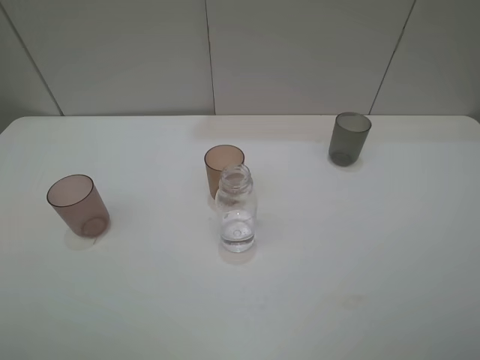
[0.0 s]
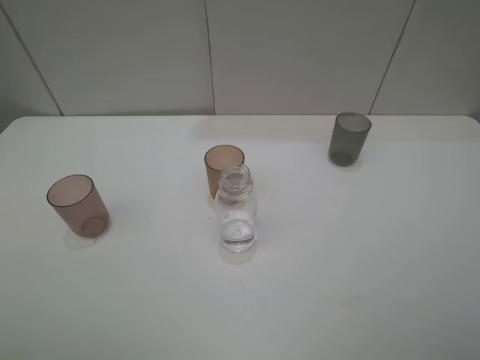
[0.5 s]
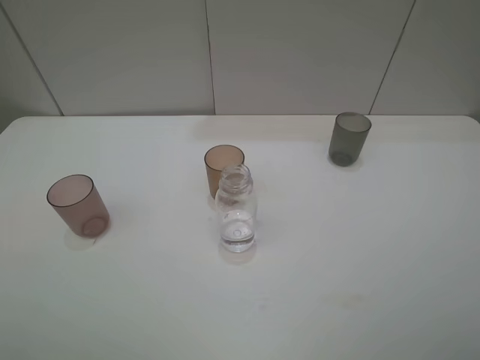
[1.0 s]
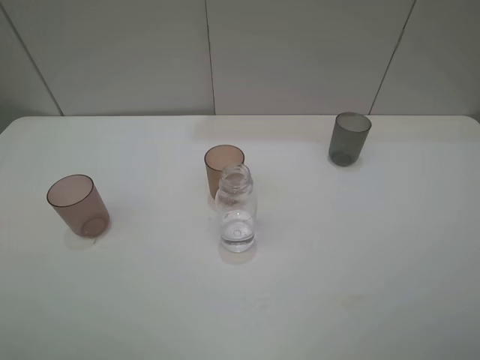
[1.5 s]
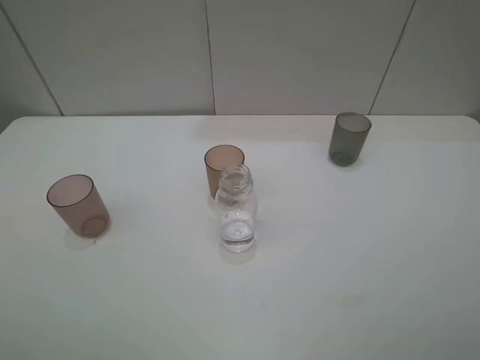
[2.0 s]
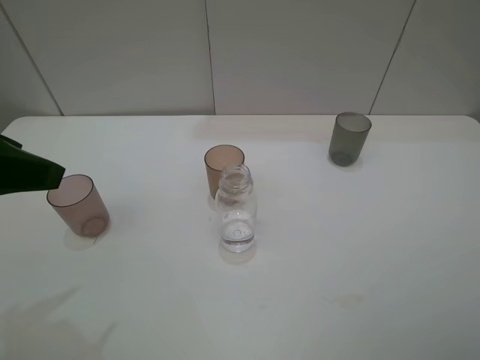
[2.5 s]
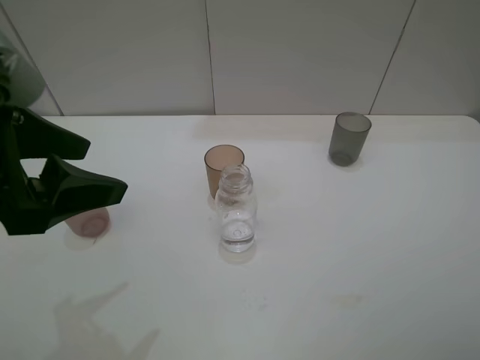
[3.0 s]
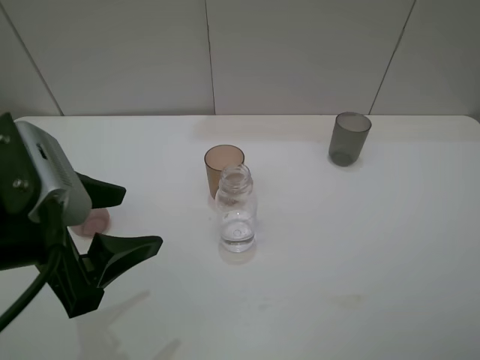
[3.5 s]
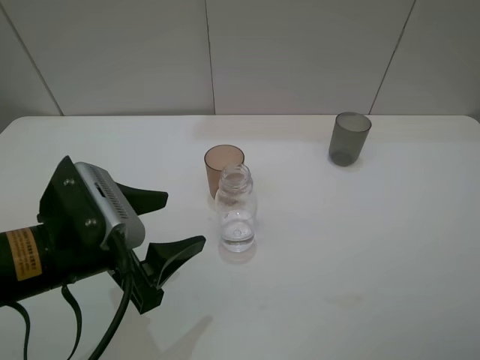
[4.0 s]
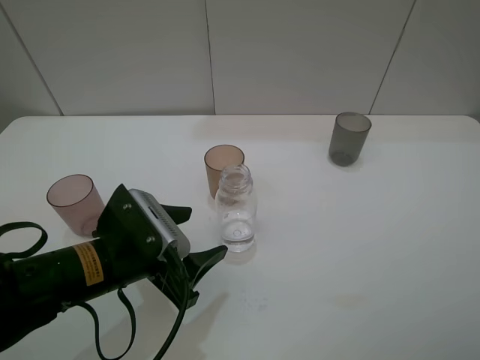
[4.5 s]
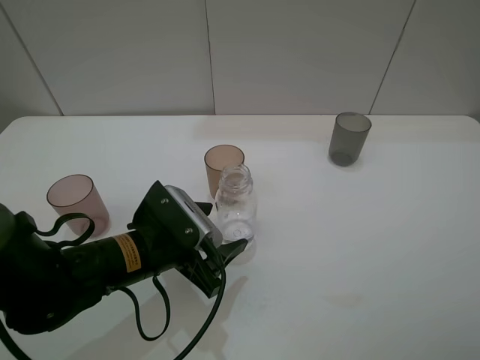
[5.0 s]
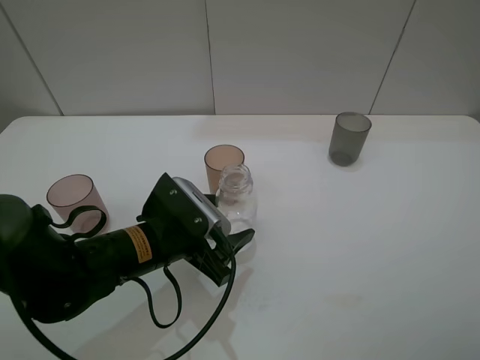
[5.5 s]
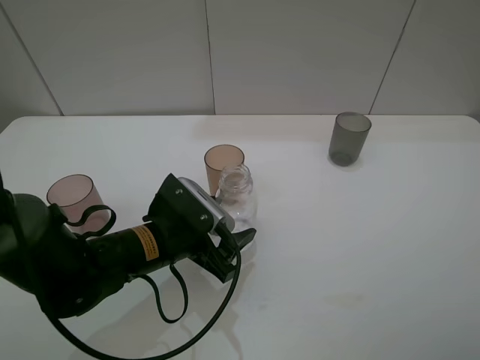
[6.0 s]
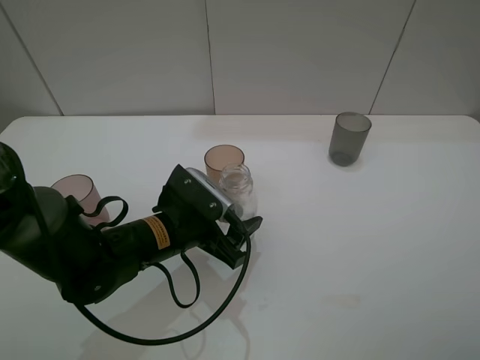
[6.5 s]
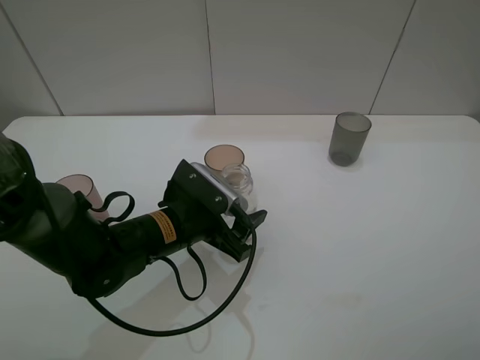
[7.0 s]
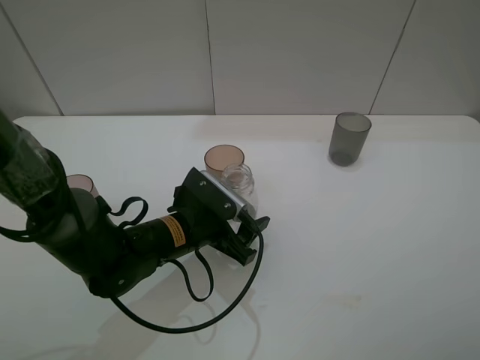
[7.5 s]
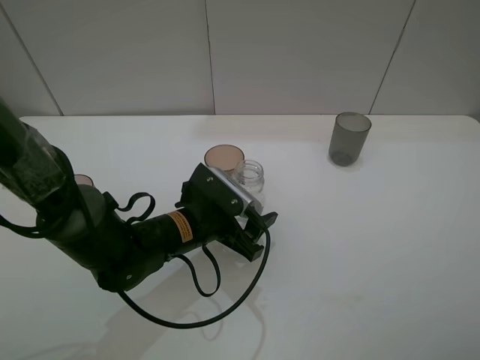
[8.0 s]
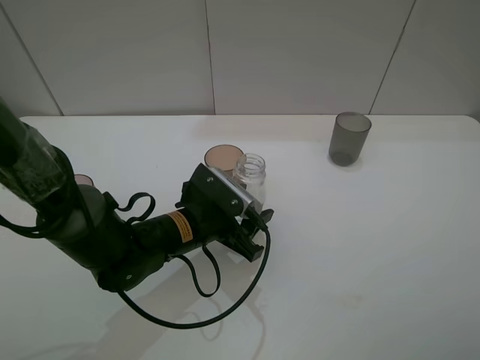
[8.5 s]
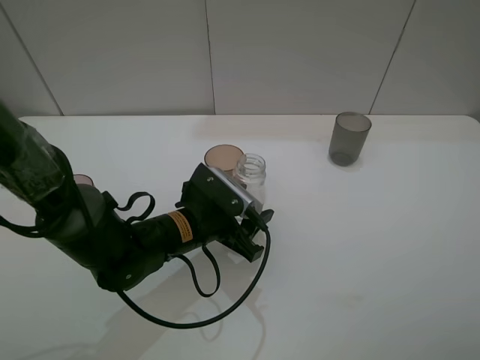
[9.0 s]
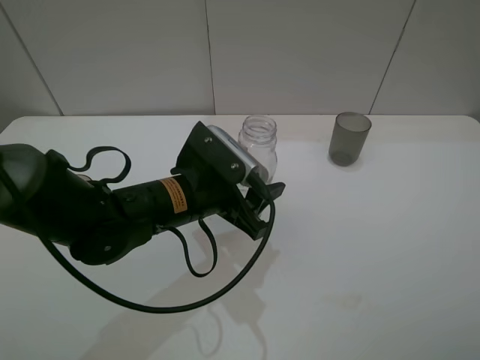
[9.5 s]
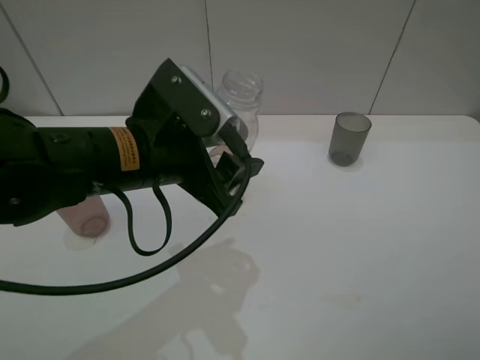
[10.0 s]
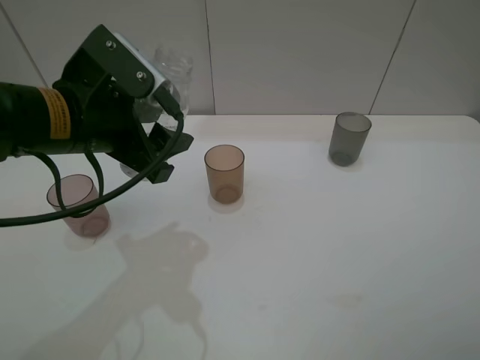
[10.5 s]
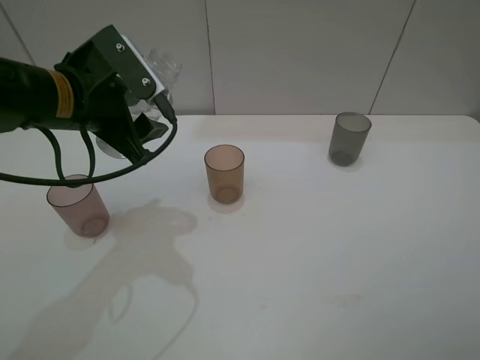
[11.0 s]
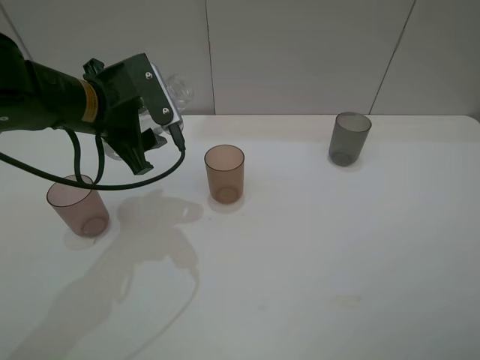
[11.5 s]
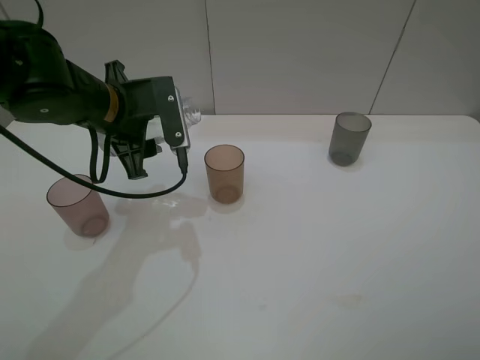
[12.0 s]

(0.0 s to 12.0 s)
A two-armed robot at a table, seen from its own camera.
Task of the whole recording: pick up the bottle filled with water and pour water into the middle cup of the three cups.
Step, 0.0 s - 7.5 s: Grasp the transparent bottle with the left gripper.
2.0 s - 4.0 s: The left gripper travels to the right, downward and forward by roughly 20 cm.
4.0 s - 6.0 s: The left gripper goes some 10 cm downward, forward and to the right.
6.0 s - 8.0 s: The grippers stay close to where they were, moving slightly.
8.0 s - 10.0 s: The left gripper travels upward by roughly 15 cm, and closes.
10.0 s - 12.0 s: The left gripper goes some 10 cm forward and to the left.

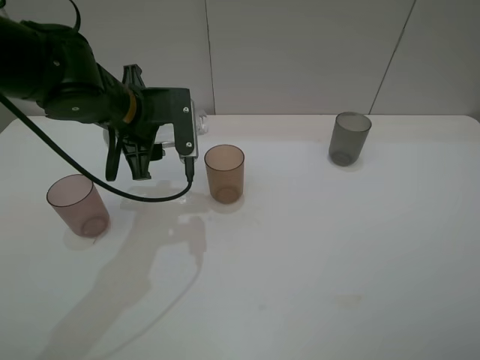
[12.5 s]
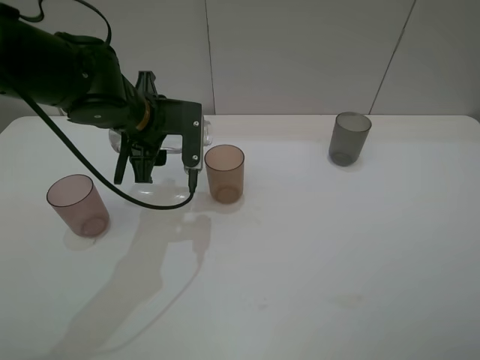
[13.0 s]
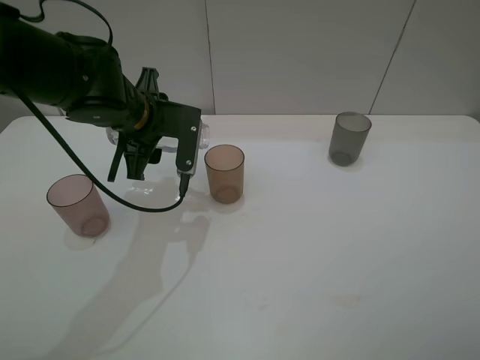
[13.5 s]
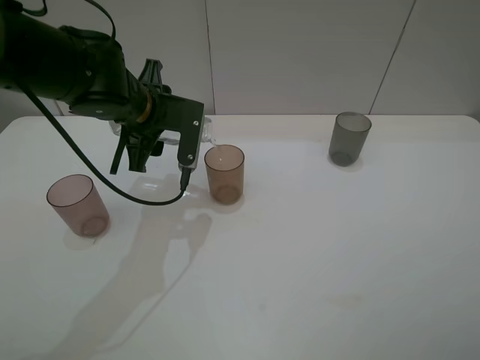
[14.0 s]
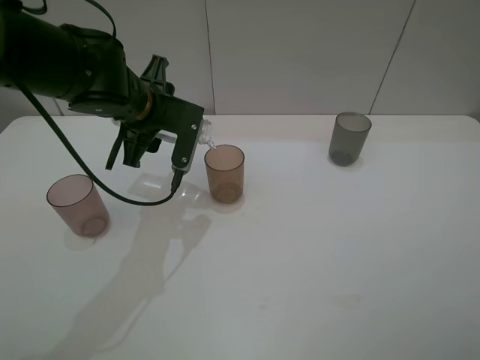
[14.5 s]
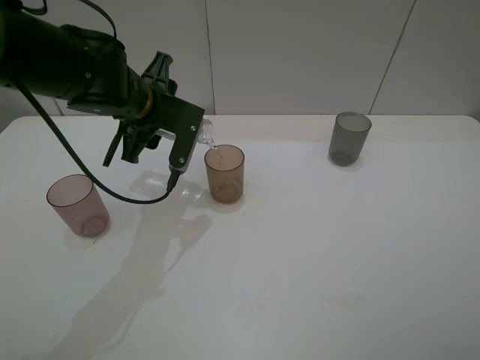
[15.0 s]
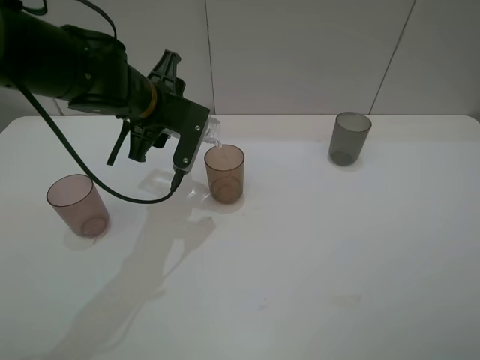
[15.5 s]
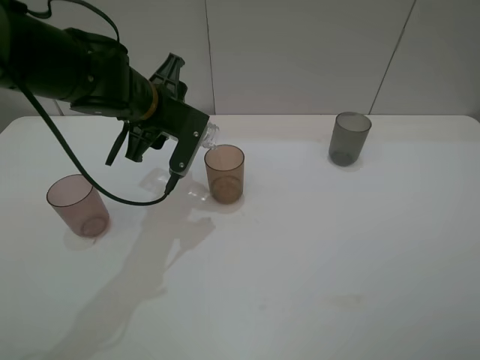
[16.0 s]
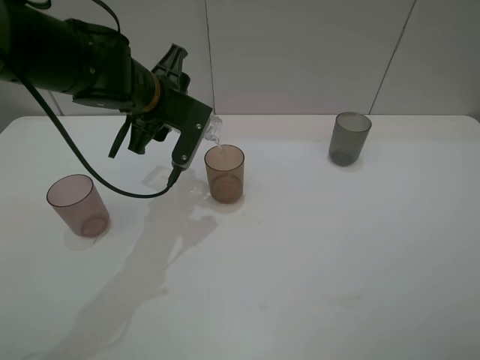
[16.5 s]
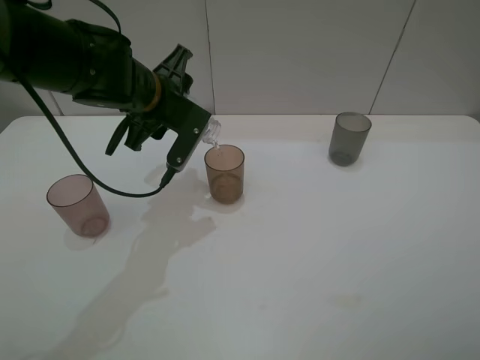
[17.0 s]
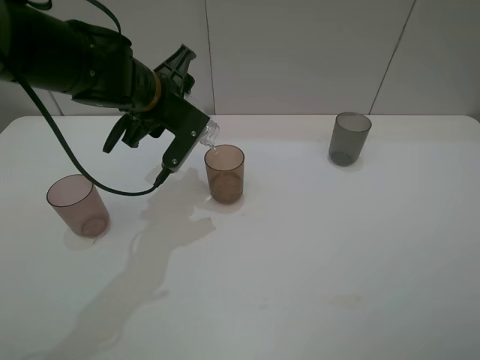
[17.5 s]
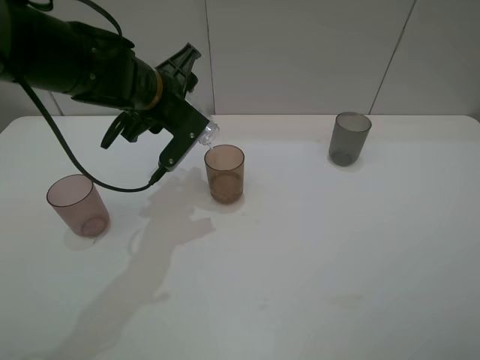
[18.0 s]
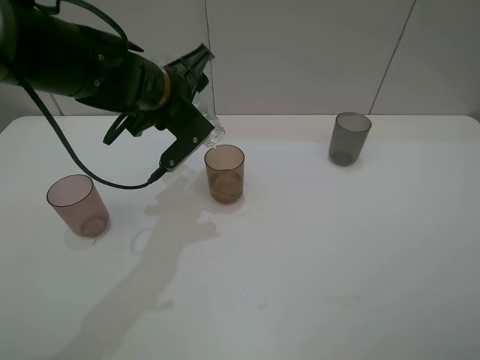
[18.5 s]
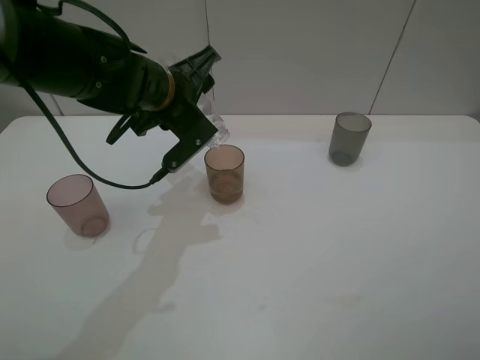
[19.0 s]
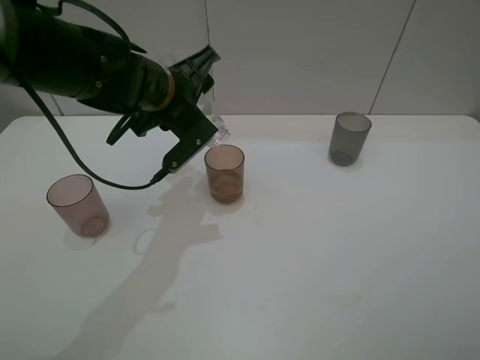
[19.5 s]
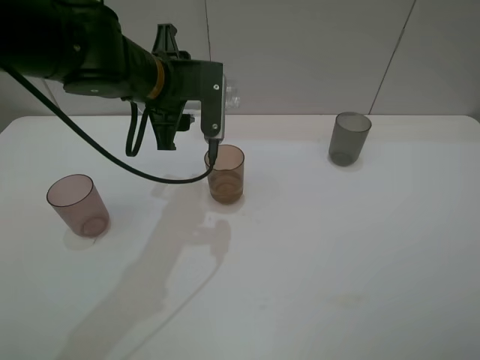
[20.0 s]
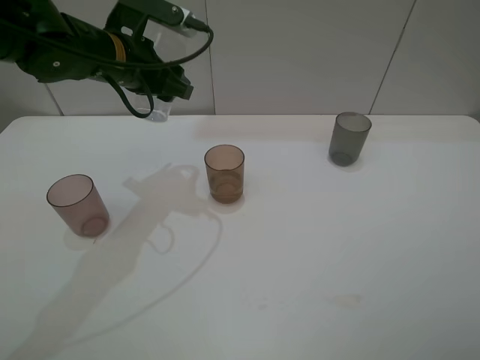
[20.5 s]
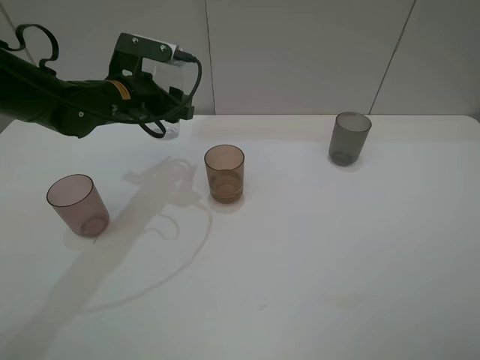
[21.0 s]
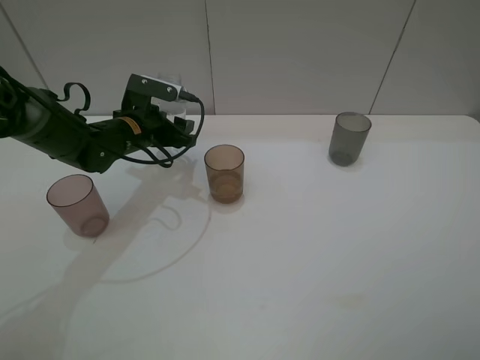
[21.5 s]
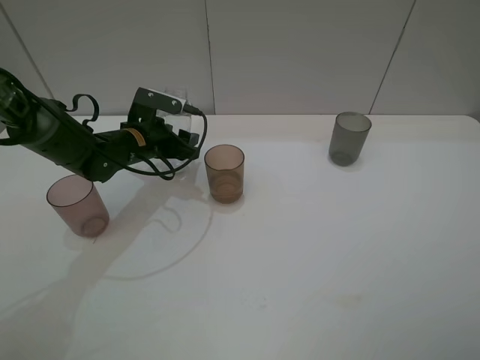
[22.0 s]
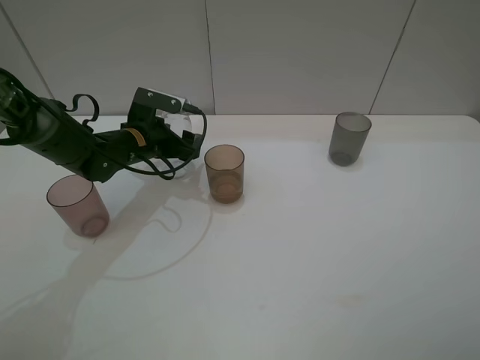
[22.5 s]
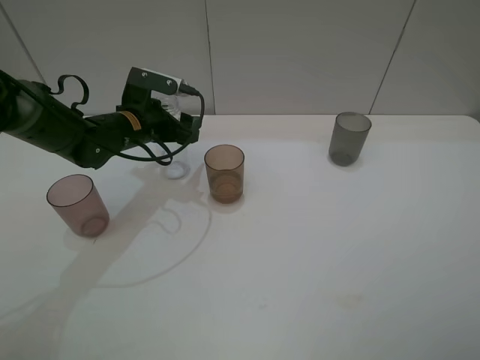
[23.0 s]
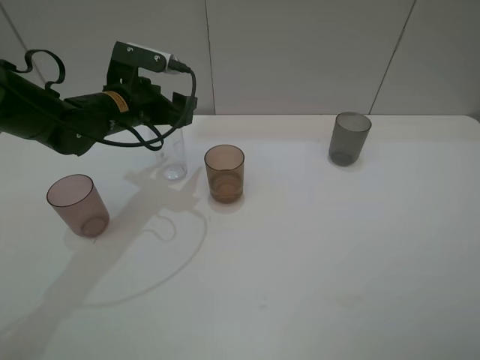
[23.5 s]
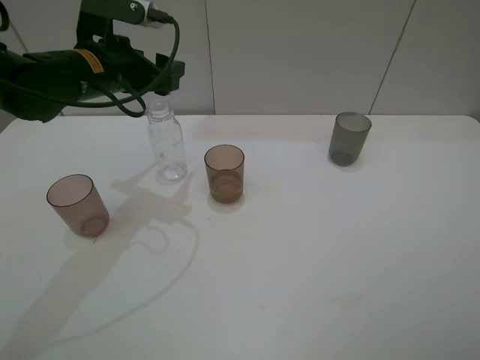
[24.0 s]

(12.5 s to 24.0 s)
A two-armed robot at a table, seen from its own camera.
Task of the whole recording: pick up the bottle filled with water and pour water into the middle cup of the three cups.
14.5 s - 16.5 s: The grippers stay close to where they were, moving slightly.
20.0 s - 22.0 s: The left gripper travels downward and to the left by approximately 15 cm.
22.0 s - 24.0 s: The left gripper goes about 15 cm upward, and opens its fingers.

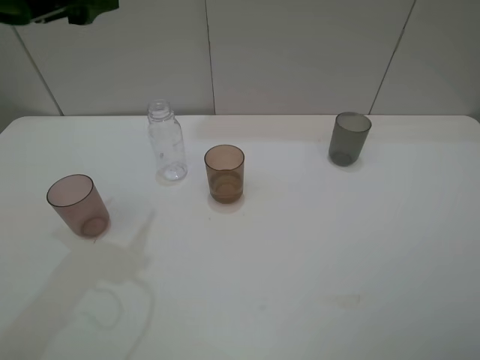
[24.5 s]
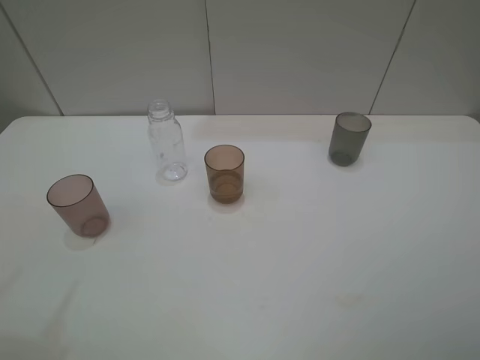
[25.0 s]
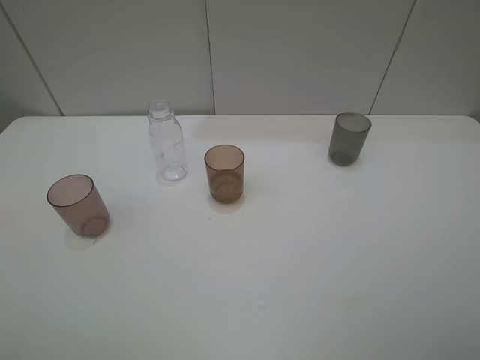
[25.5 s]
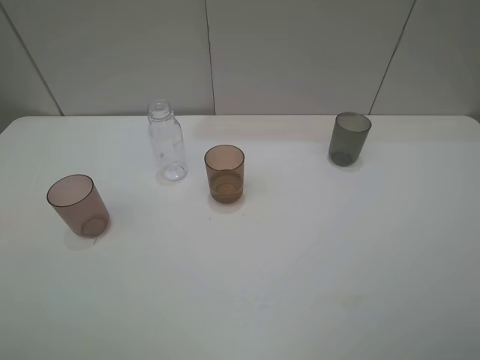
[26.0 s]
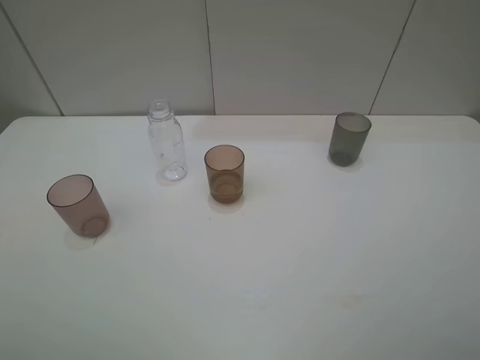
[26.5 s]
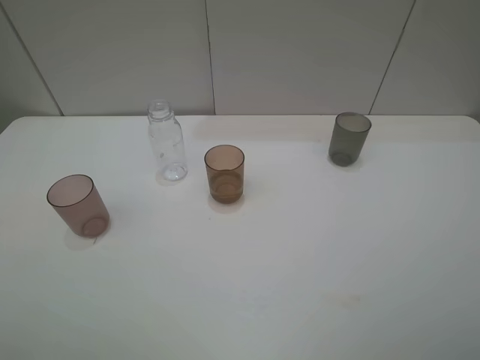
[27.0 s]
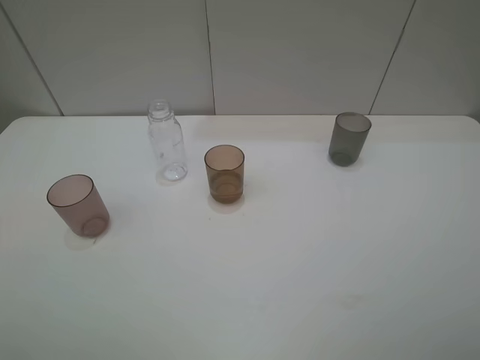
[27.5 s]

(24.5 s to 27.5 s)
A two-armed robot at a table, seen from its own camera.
Task of the whole recording: pick up the bottle filled with water and pour water into the middle cup of the three cups.
24.5 s - 26.0 s: The left gripper travels backward by roughly 25 cm.
